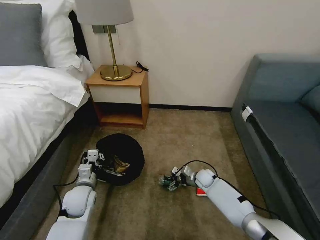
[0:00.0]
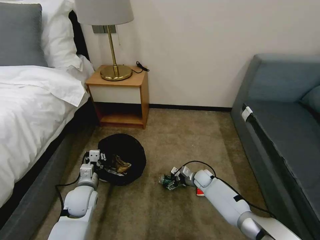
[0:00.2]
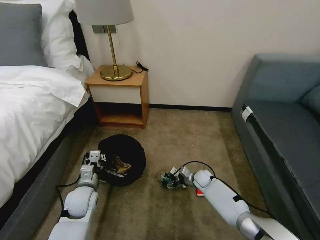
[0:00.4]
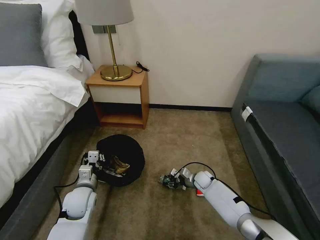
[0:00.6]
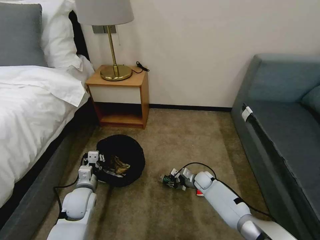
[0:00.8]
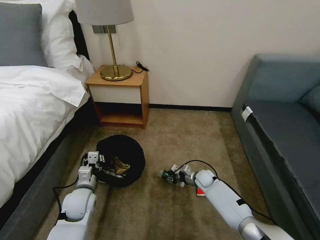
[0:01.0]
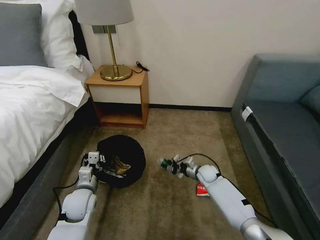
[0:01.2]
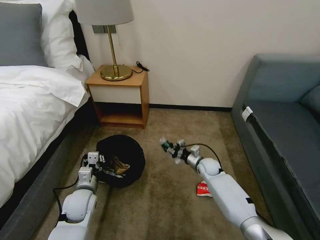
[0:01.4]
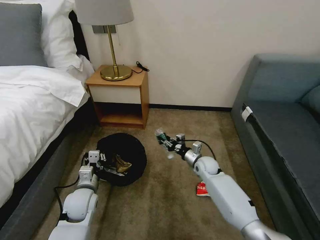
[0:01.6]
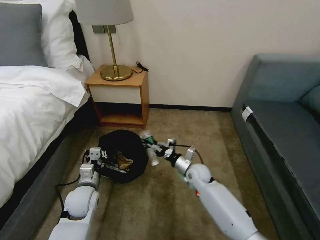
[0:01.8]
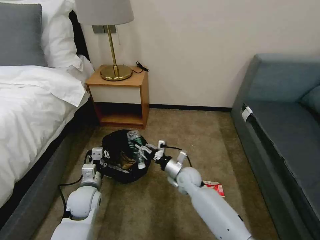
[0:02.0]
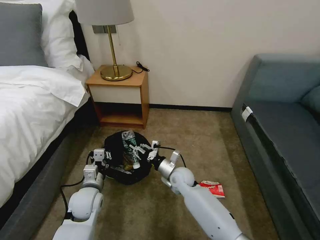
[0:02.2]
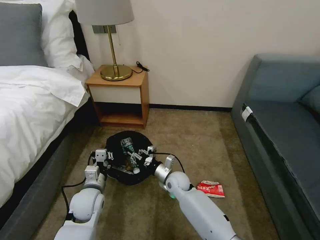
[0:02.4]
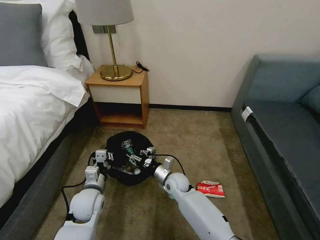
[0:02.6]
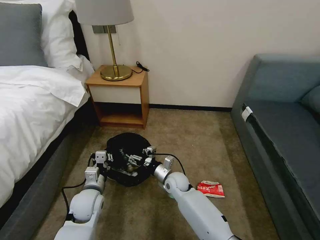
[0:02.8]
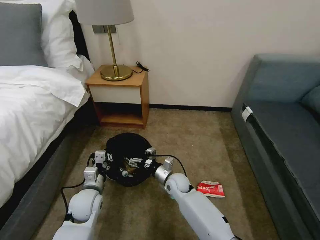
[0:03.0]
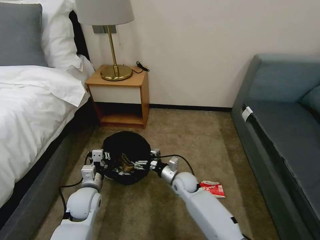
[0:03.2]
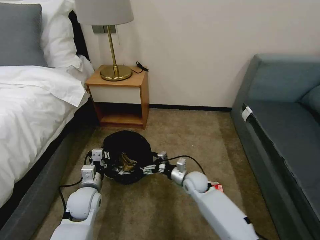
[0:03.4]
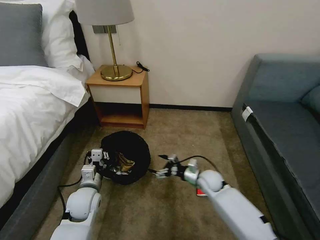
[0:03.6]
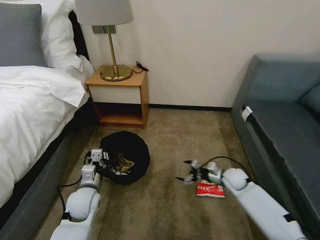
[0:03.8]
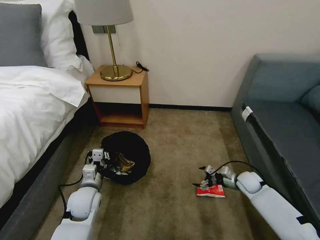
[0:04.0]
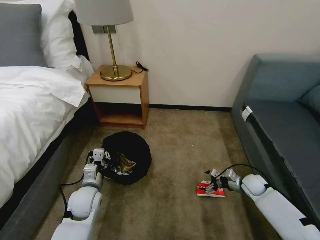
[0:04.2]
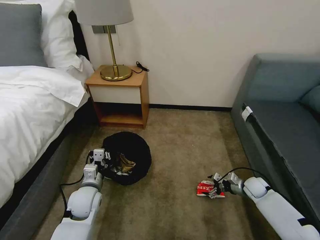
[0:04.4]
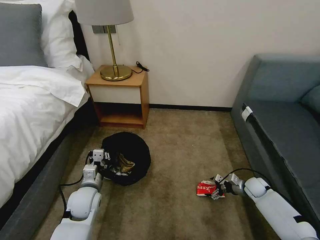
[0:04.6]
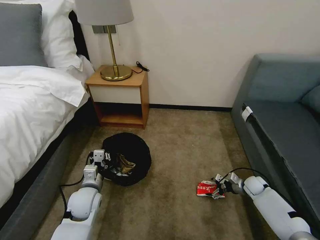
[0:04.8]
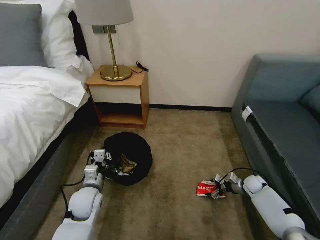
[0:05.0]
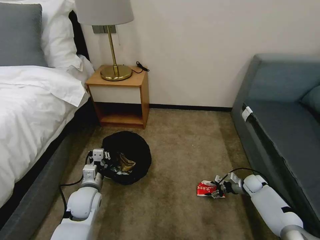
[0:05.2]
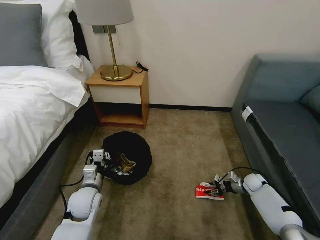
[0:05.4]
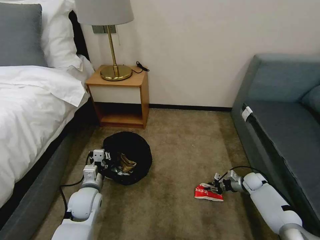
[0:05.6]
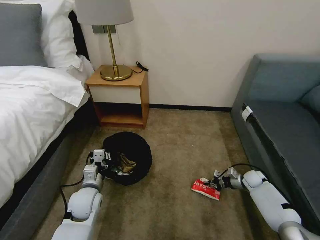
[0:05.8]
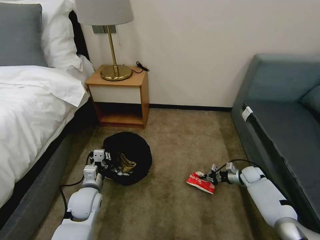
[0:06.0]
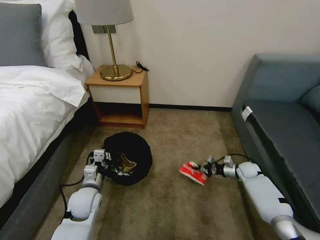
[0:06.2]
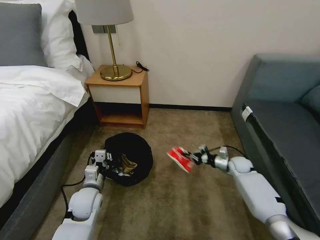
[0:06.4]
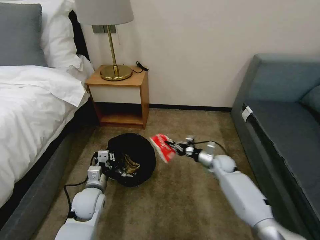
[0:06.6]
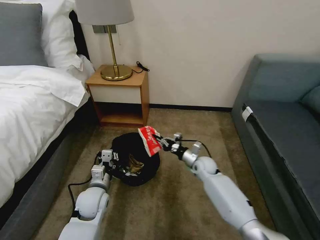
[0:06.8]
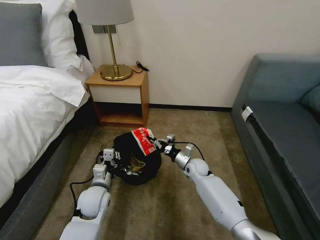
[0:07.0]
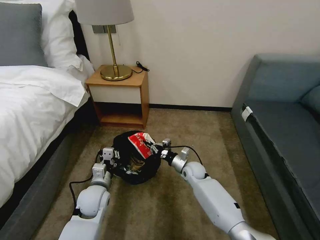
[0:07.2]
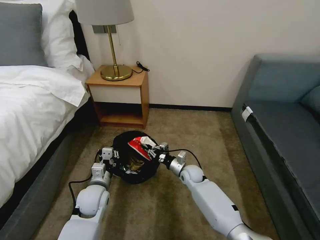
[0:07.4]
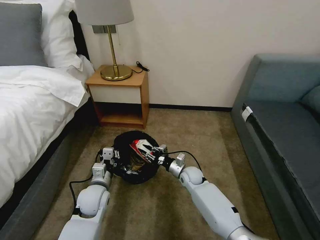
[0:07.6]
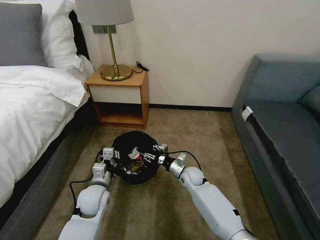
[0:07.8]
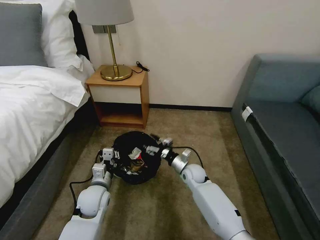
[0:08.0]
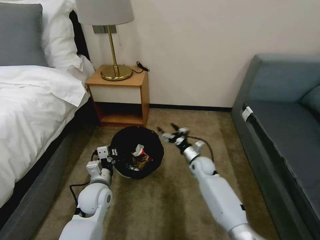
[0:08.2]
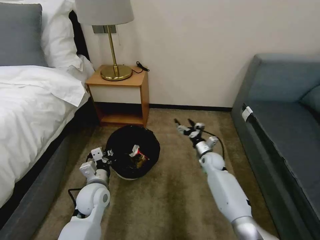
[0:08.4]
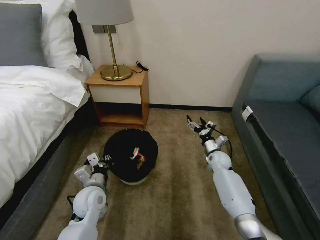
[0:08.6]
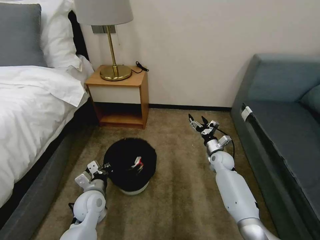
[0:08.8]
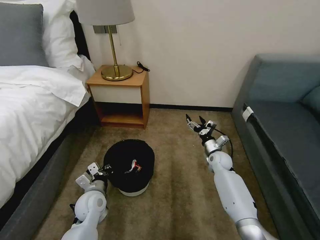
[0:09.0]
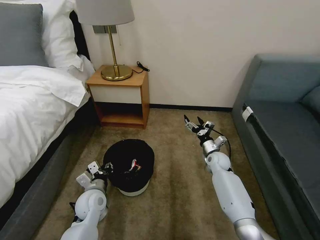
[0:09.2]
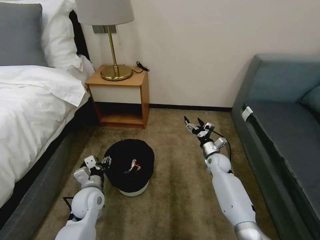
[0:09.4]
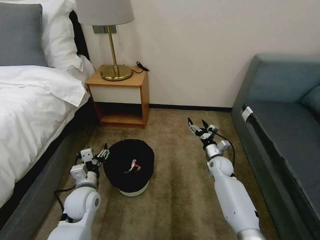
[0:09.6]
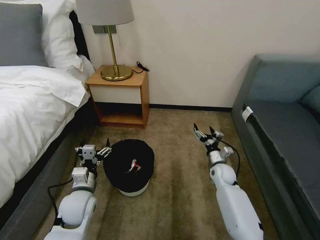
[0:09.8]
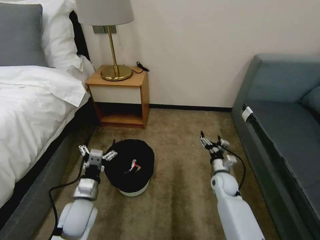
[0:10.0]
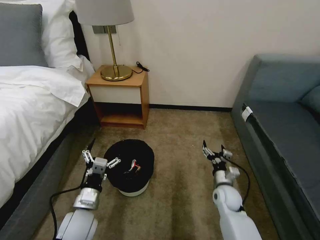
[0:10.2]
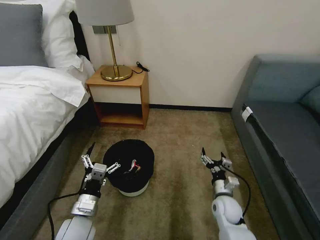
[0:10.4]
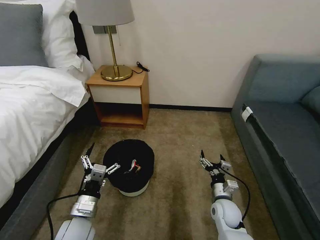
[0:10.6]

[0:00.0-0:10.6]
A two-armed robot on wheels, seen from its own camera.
Task of the whole recording: Pick up the trash bin, then pick up the garbage on the floor and place it into the trash bin.
0:00.0 to 0:01.6: The right gripper goes roughly 10 cm upward, and closes its fingers.
0:01.6 to 0:03.0: The right gripper is displaced to the left and backward by approximately 15 cm, and opens its fingers.
0:03.0 to 0:04.6: The right gripper moves to the right, roughly 35 cm.
0:04.6 to 0:06.0: The right gripper goes roughly 5 cm forward, and closes.
0:06.0 to 0:07.6: The right gripper shifts roughly 30 cm to the left, and opens up.
0:07.6 to 0:09.0: The right gripper travels to the right by roughly 15 cm, and opens up.
0:09.0 to 0:10.6: The right gripper is displaced backward by some 20 cm; the left gripper moves backward, some 10 cm, and opens its fingers.

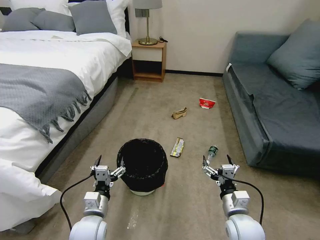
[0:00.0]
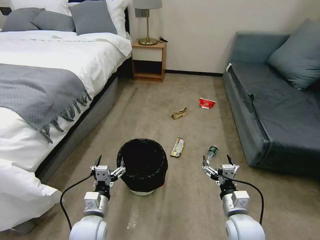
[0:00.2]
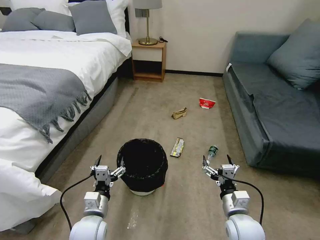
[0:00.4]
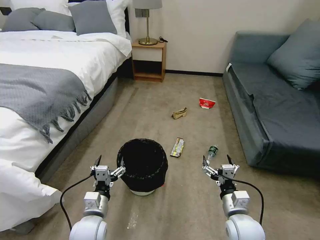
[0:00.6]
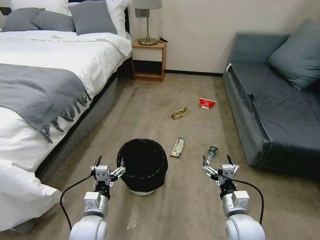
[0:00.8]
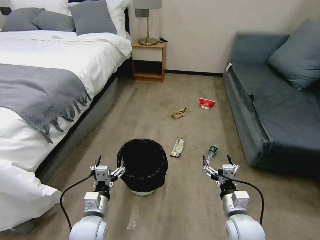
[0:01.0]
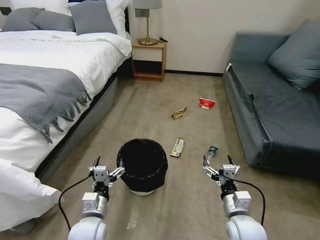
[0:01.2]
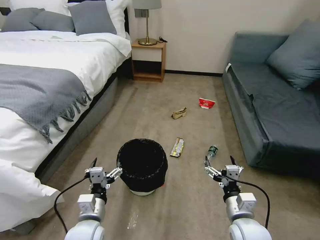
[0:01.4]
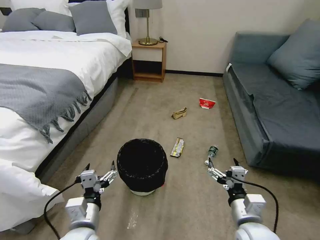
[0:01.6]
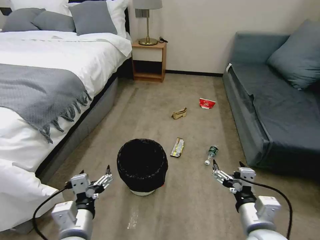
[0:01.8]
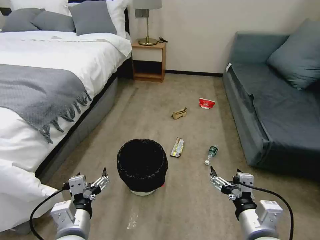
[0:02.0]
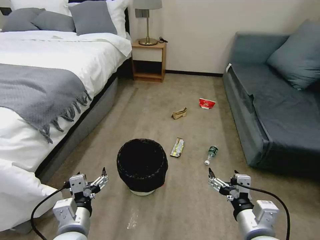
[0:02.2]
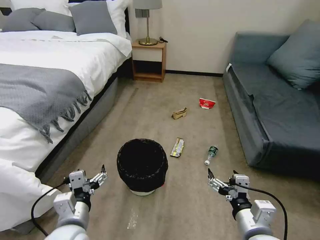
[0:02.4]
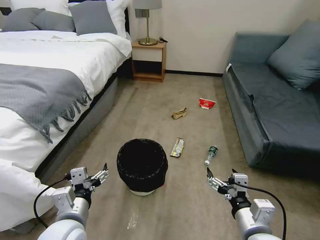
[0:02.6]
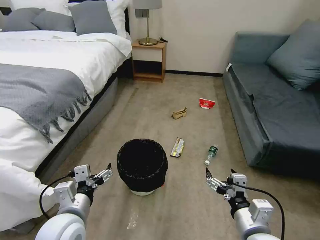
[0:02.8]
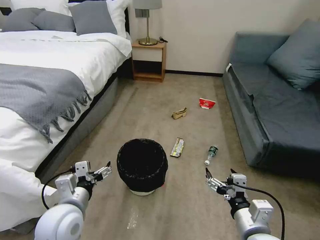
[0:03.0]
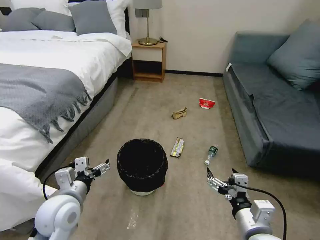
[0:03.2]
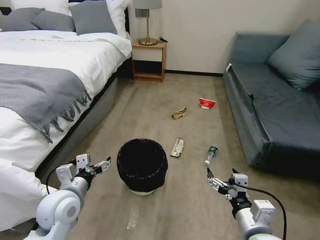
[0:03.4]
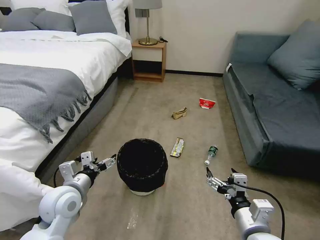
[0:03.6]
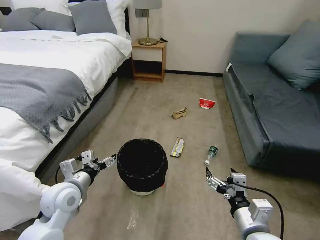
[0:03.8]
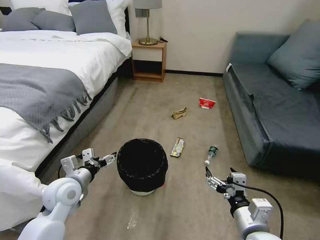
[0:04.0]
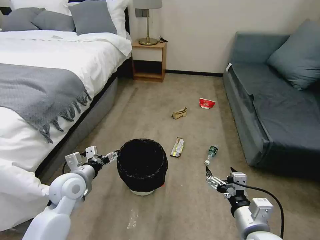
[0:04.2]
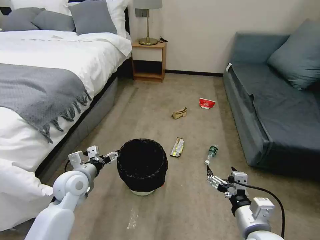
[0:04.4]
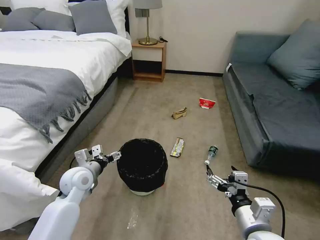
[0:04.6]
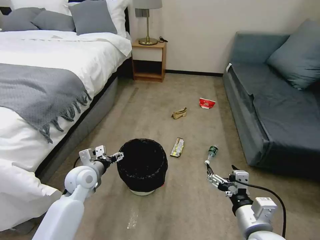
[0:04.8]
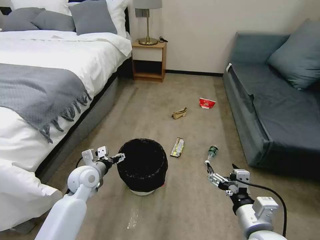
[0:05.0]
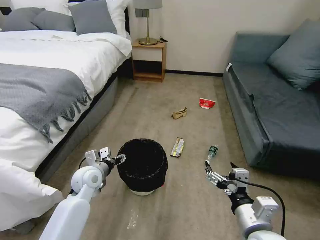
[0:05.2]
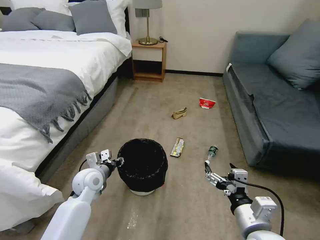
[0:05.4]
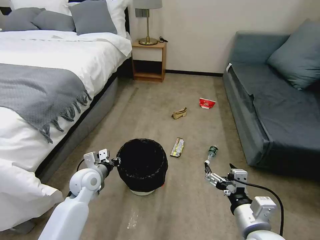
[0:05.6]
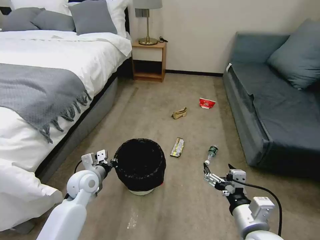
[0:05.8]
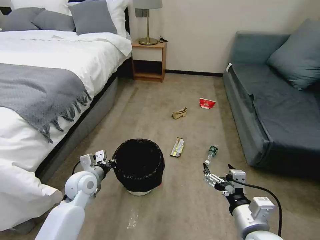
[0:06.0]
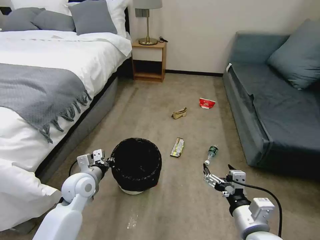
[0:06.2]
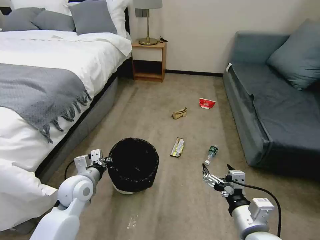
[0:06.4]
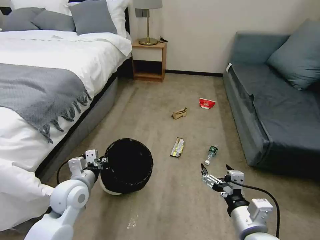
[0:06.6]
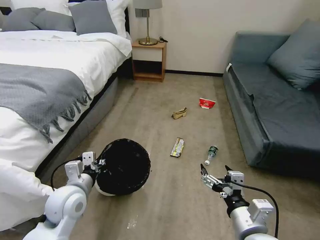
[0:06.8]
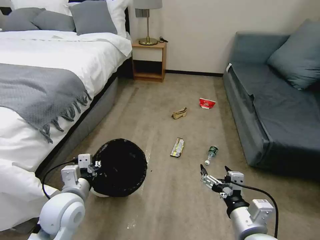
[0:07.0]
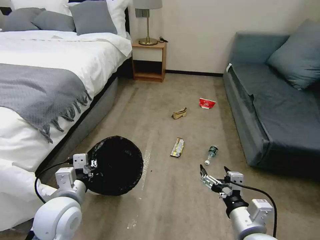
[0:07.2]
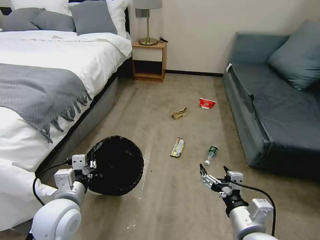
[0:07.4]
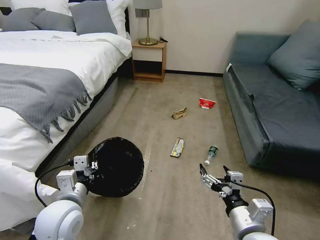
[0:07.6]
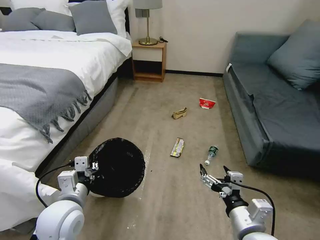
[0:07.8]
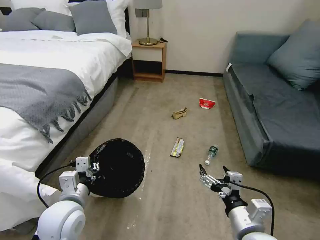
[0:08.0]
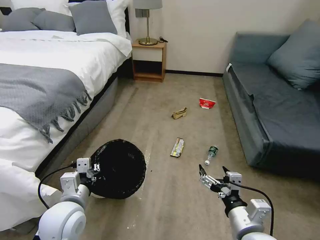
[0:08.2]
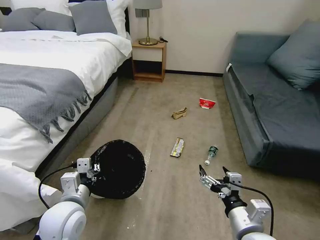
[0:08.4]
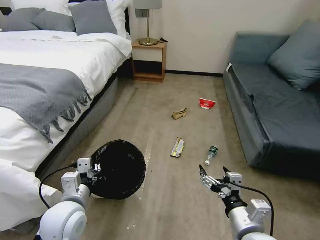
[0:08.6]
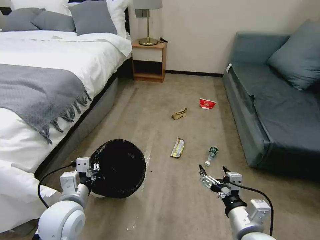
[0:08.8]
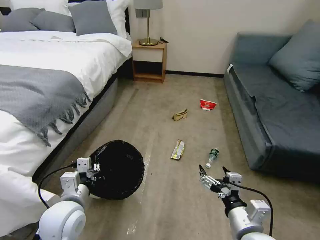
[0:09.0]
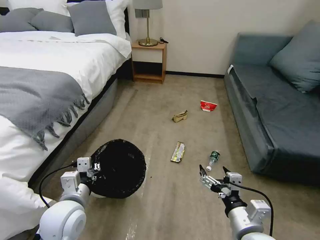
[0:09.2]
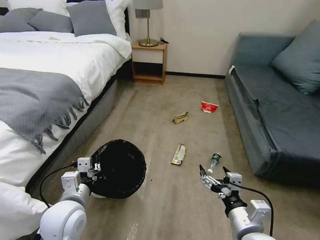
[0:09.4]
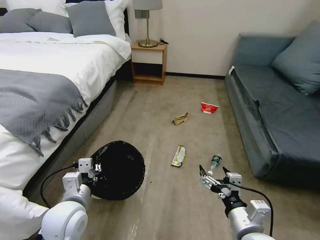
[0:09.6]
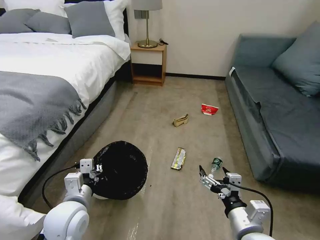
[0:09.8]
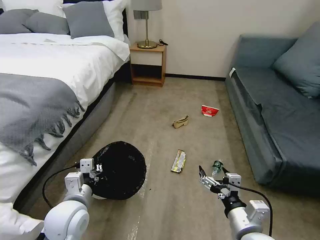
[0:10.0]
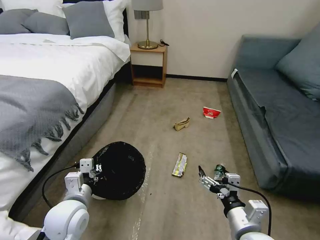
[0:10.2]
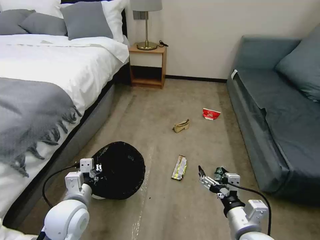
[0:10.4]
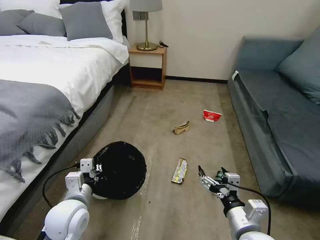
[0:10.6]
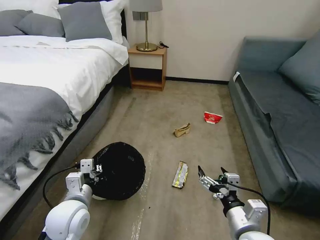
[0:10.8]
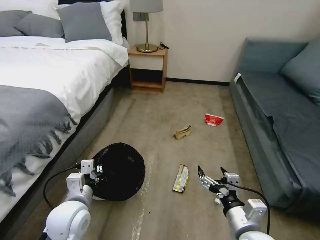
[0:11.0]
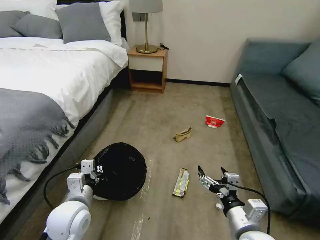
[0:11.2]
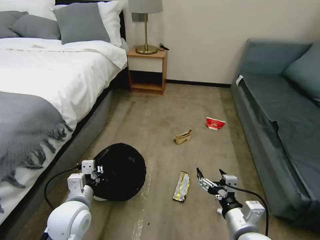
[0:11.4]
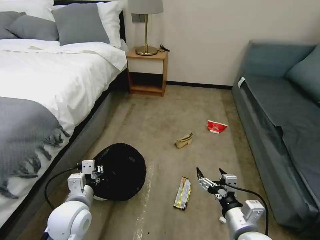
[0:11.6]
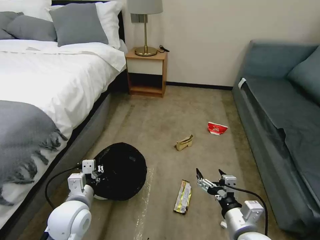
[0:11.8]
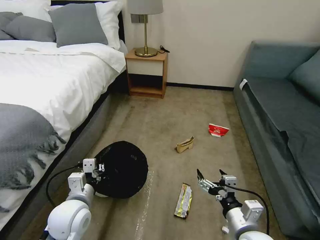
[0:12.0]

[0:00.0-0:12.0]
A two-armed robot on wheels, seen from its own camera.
Task of the whole recording: Pick up the trash bin, then pick up the garbage on the floor and place it into the trash bin.
0:01.6 to 0:03.0: The grippers both shift upward by roughly 5 cm.
0:03.0 to 0:04.4: The left gripper shifts some 10 cm forward.
0:04.4 to 0:06.0: The left gripper closes up.
0:06.0 to 0:07.6: The left gripper shifts roughly 15 cm backward and upward.
0:07.6 to 0:09.0: There are only small adjustments of the grippers.
